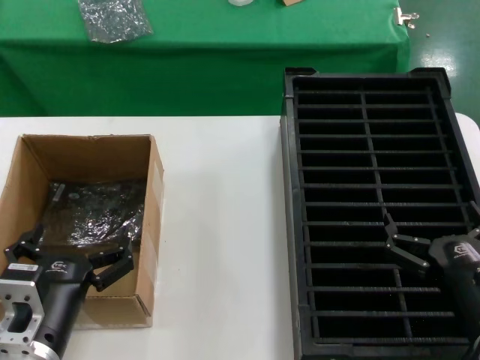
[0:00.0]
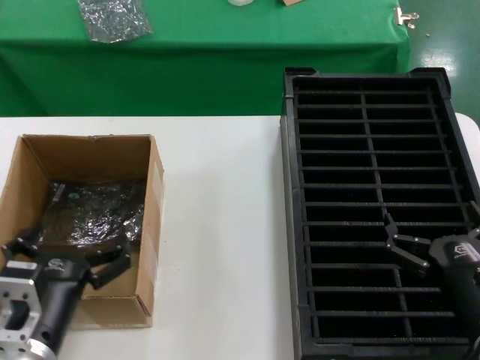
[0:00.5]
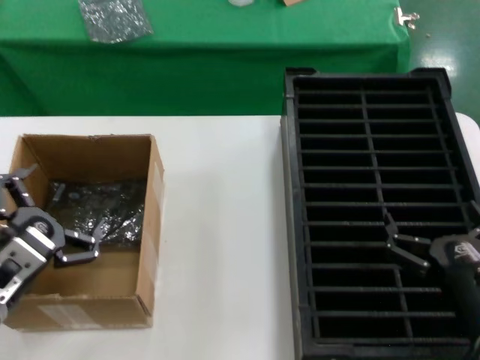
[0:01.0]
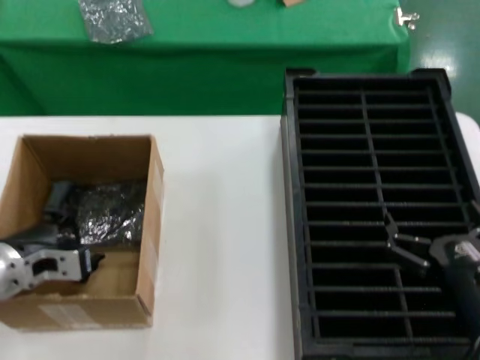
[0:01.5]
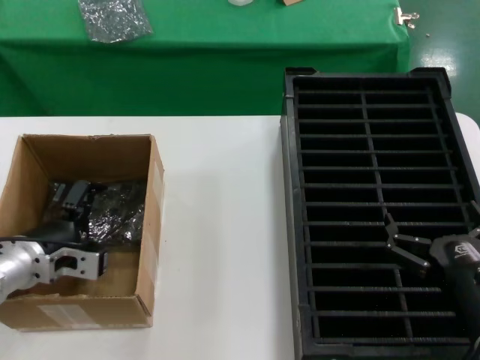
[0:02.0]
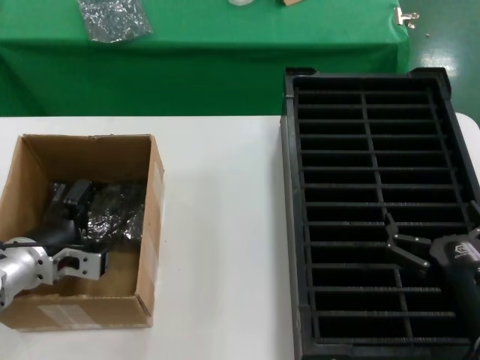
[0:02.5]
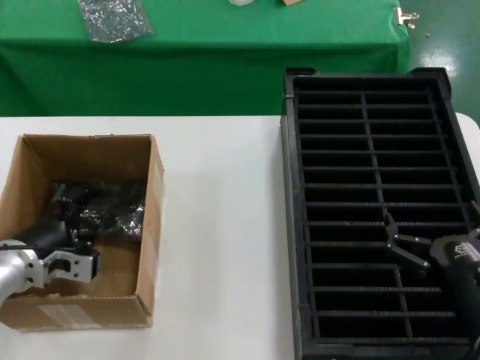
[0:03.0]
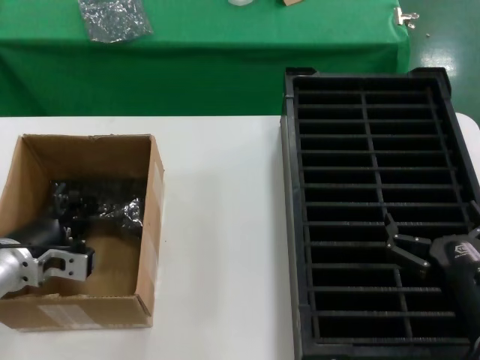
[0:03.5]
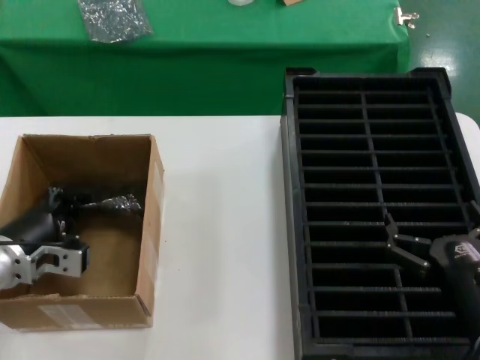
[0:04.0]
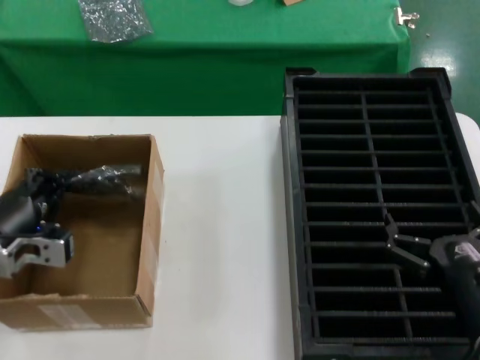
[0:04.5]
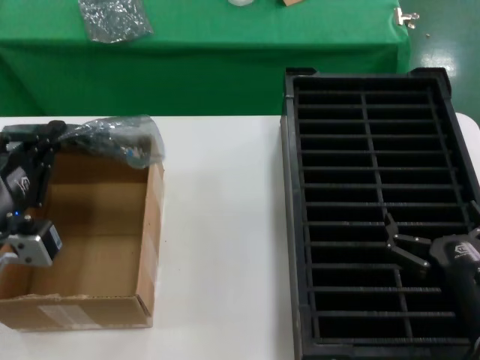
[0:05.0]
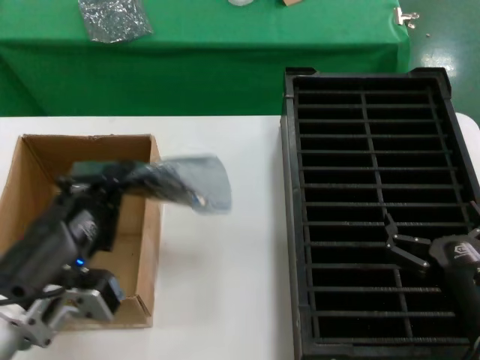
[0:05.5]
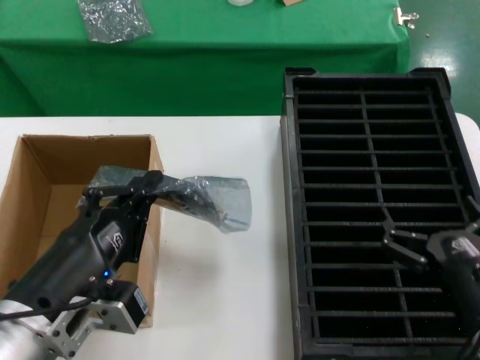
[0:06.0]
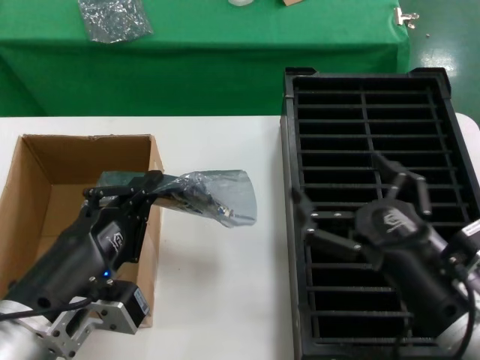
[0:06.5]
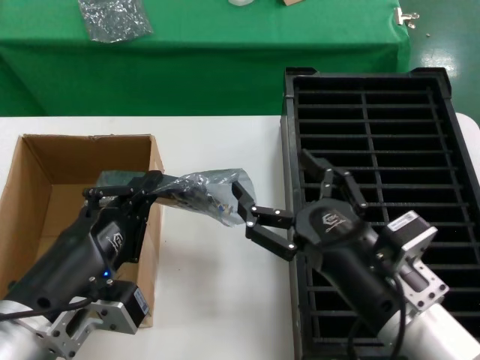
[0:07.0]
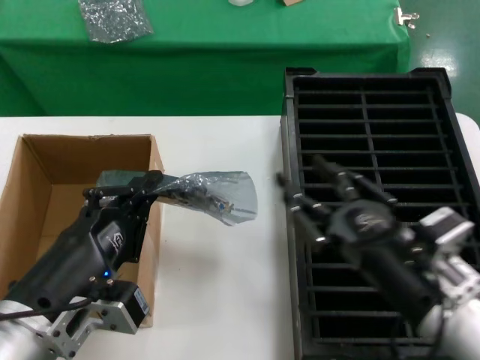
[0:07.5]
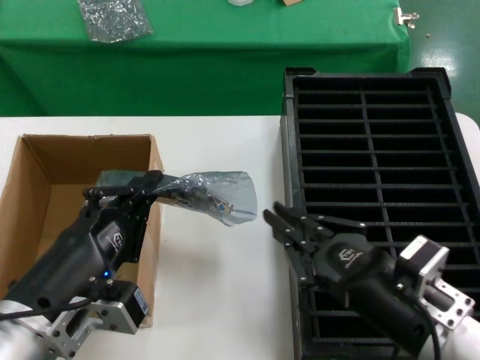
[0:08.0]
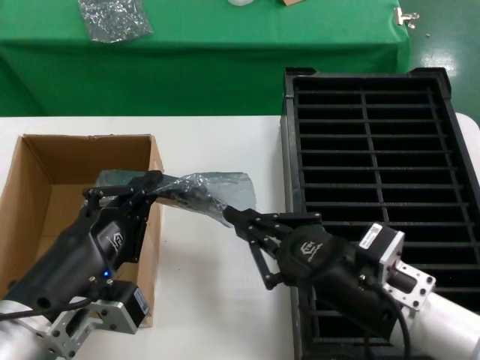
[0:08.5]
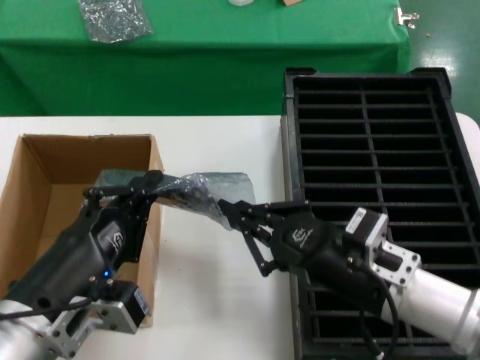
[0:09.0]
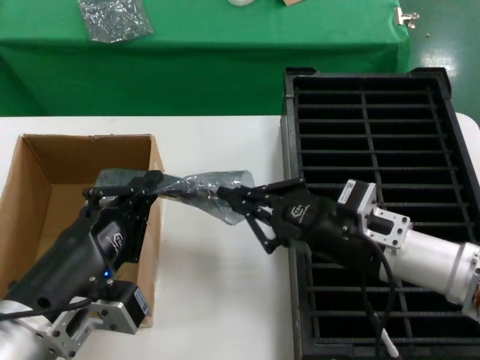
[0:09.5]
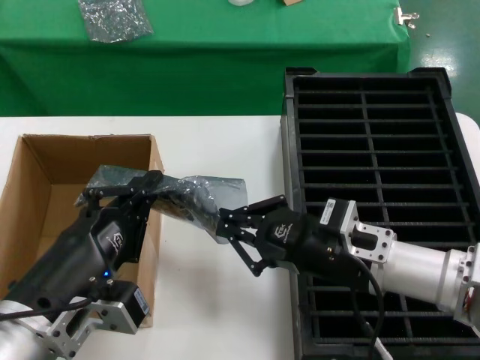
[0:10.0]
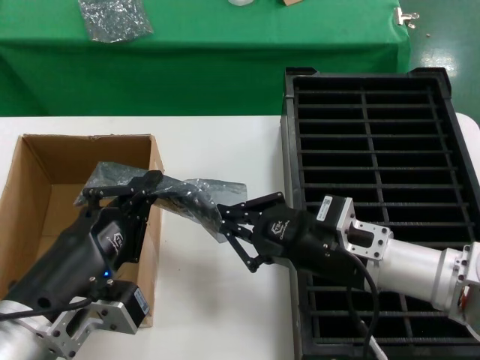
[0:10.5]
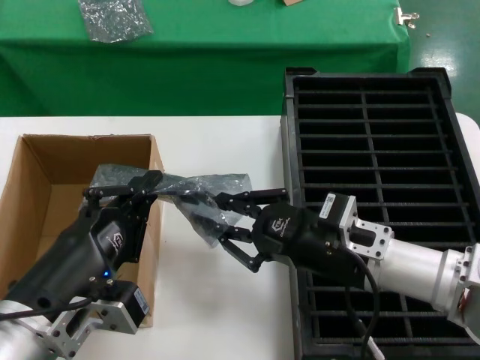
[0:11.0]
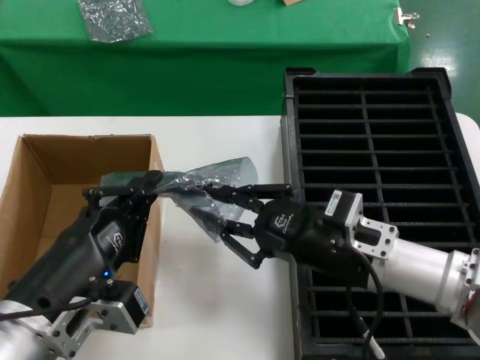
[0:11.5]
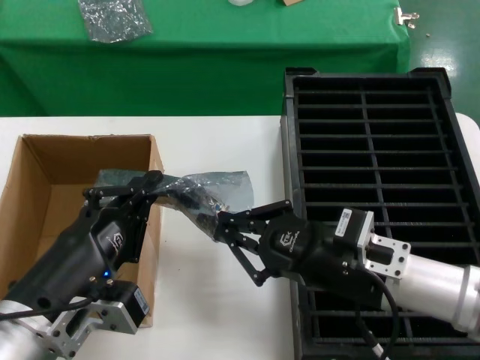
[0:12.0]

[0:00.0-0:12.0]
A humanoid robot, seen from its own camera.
Task of the whole recording: take out graphics card from box remove packaging put into black container.
Step, 0:00.0 to 0:04.0: Grasp the bag.
Step, 0:04.5 to 0:06.0: Lift the bag.
0:00.0 to 0:02.0: The left hand is displaced forward and to the left by approximately 20 cm.
0:02.0 to 0:04.0: There are only small adjustments of the hands.
0:04.0 to 0:06.0: The left hand shifts about 20 cm backward and to the right.
0:06.0 to 0:08.0: The right hand is displaced upward and to the left by roughly 5 cm.
0:08.0 to 0:10.0: The right hand goes roughly 10 cm forward.
0:10.0 to 0:12.0: The hands move only a little.

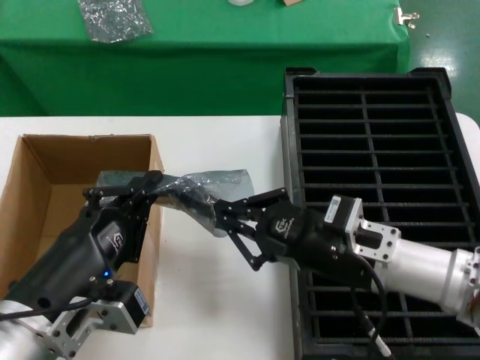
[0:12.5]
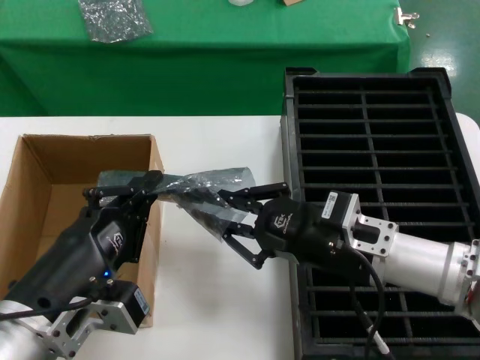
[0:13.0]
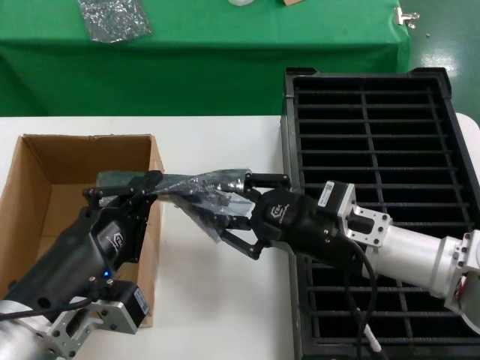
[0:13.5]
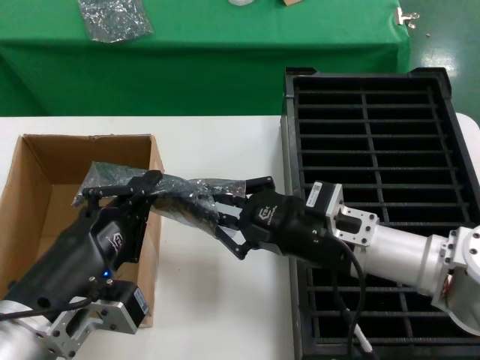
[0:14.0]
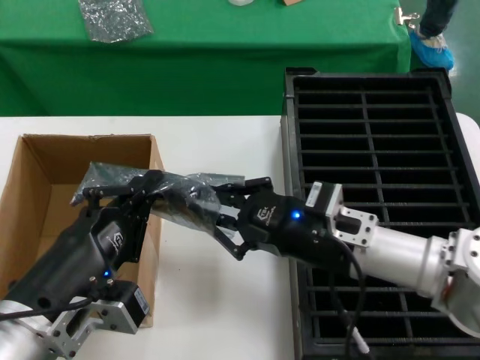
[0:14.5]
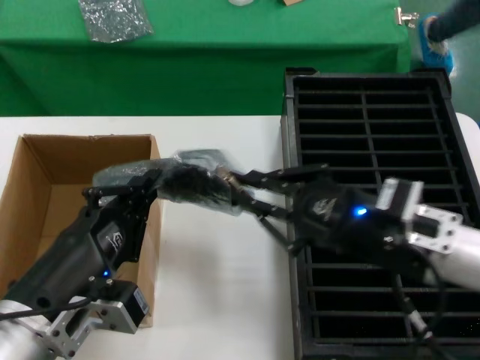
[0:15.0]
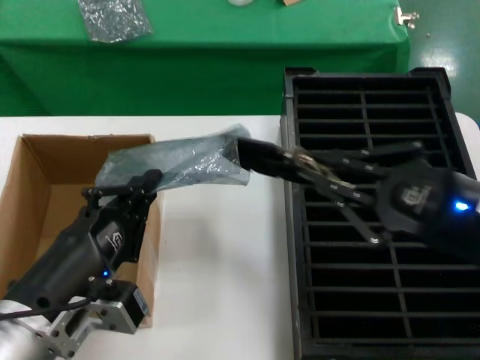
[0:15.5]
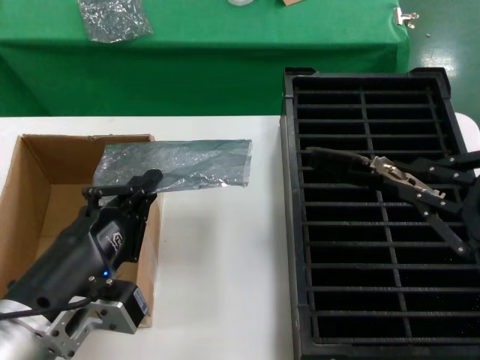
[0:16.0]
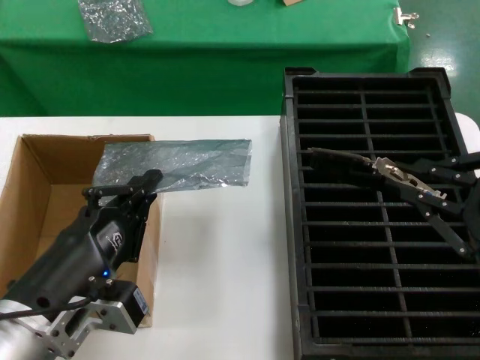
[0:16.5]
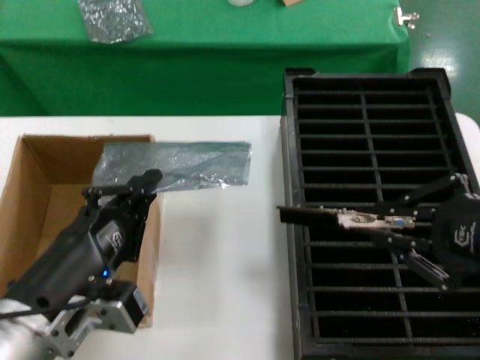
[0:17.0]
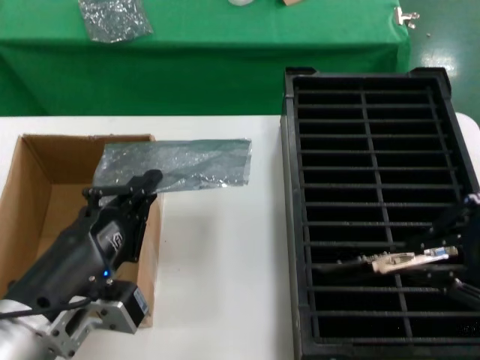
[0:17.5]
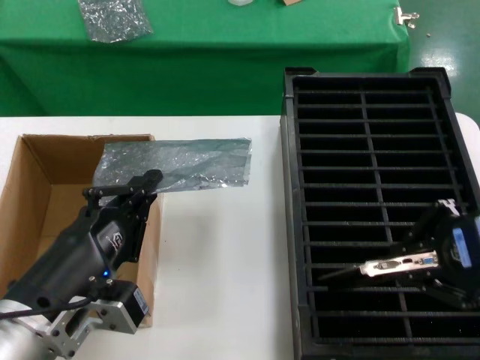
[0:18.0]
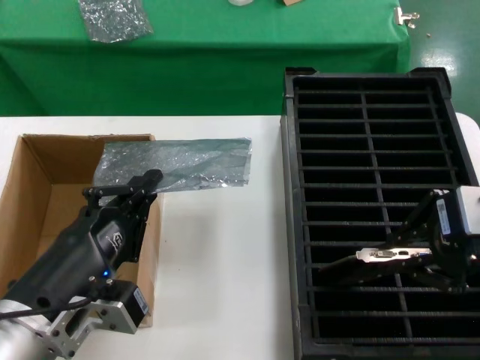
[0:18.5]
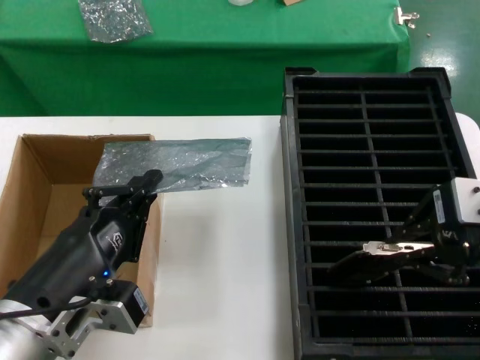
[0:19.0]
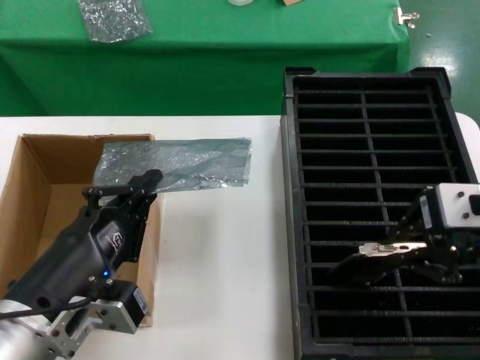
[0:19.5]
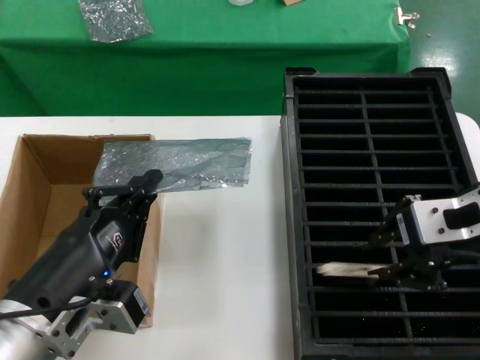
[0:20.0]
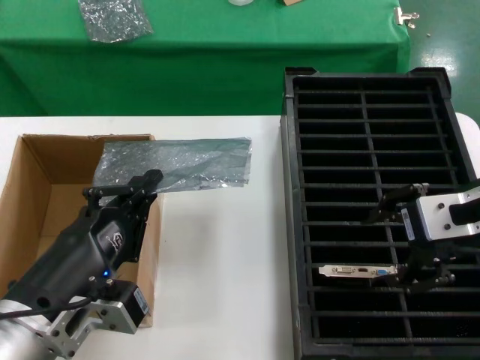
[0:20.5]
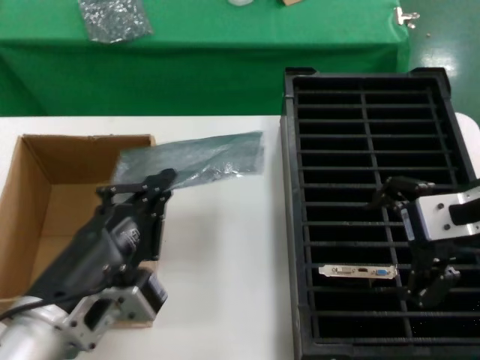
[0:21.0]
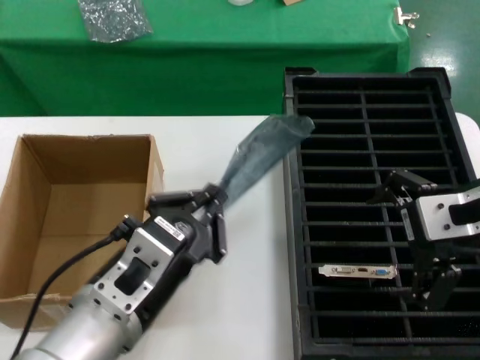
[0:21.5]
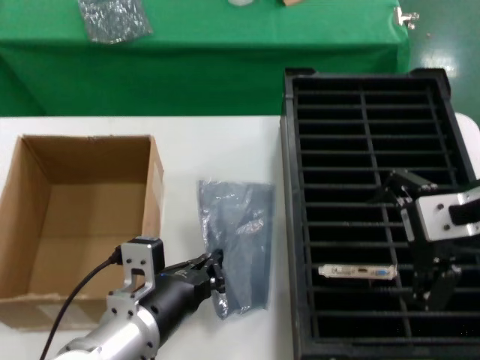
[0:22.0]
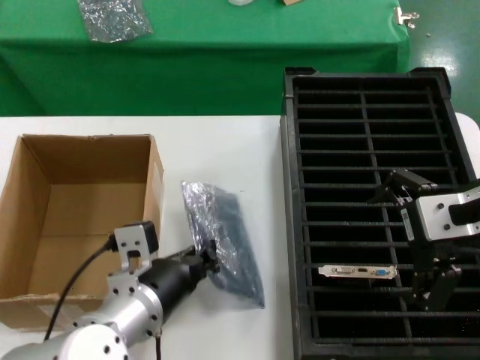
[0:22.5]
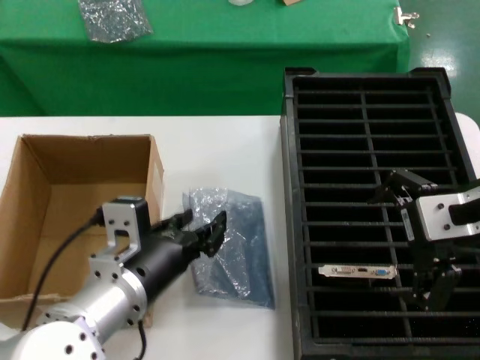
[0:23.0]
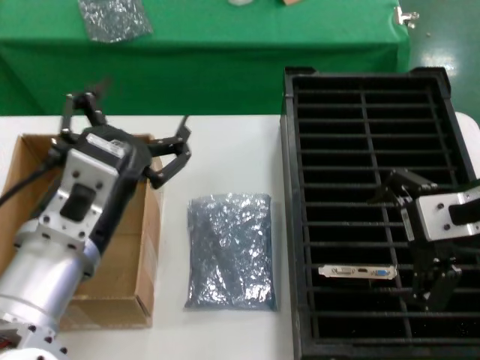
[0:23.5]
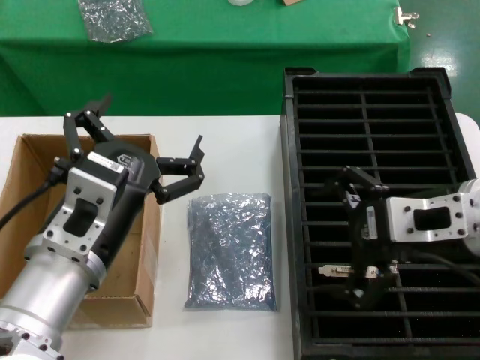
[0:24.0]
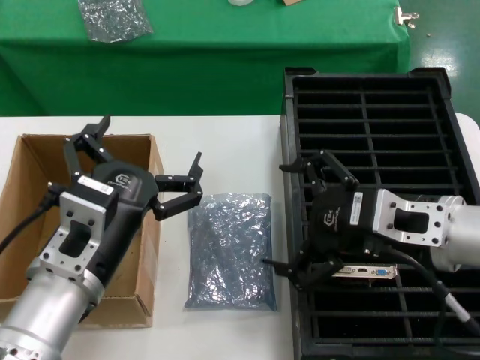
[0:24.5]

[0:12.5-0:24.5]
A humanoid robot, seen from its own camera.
Task of the whole recording: take out graphics card from box remove packaging put into black container.
Step, 0:12.5 to 0:15.5: Take out the hard disk of the bag.
Step, 0:16.0 to 0:20.0: Place the hard disk in the hard disk enclosure.
Step, 0:20.5 to 0:23.0: Place the down the bag.
0:12.5 to 0:14.5: The hands stay close to where they were, moving slightly.
0:14.5 to 0:16.5: The right hand is displaced backward, to the right and upward by roughly 25 cm.
0:16.5 to 0:18.5: The right hand is displaced forward, to the left and upward by roughly 10 cm.
0:18.5 to 0:20.5: The hands make only small movements.
0:20.5 to 0:22.5: The left hand shifts about 15 cm forward, to the right and downward.
0:22.5 to 0:24.5: The right hand moves downward, roughly 10 cm; the left hand moves upward and backward, about 10 cm.

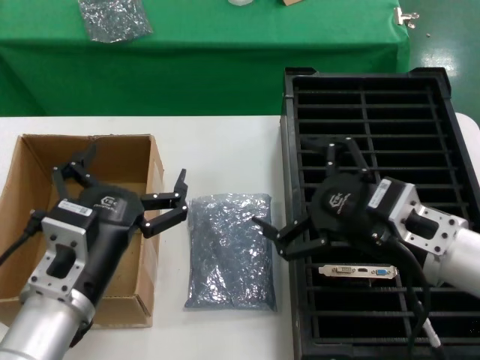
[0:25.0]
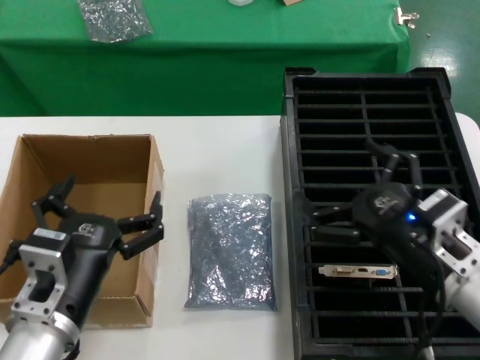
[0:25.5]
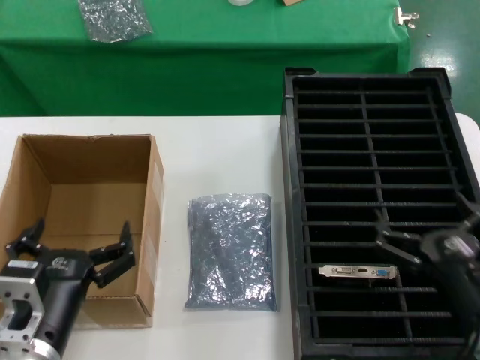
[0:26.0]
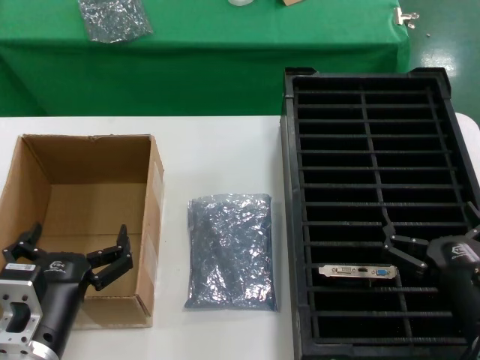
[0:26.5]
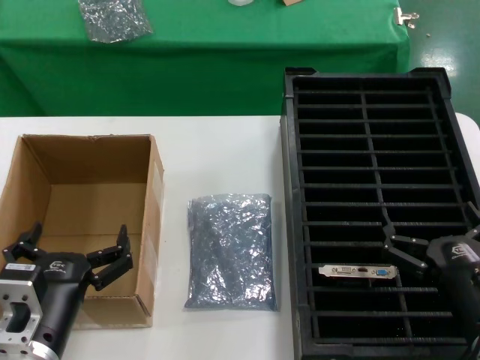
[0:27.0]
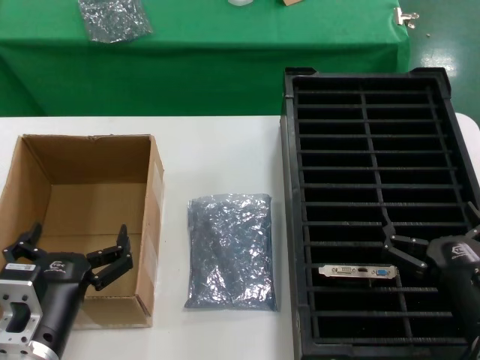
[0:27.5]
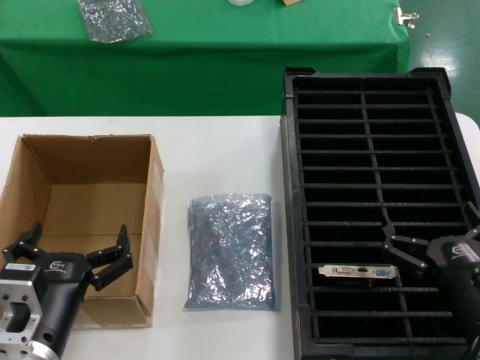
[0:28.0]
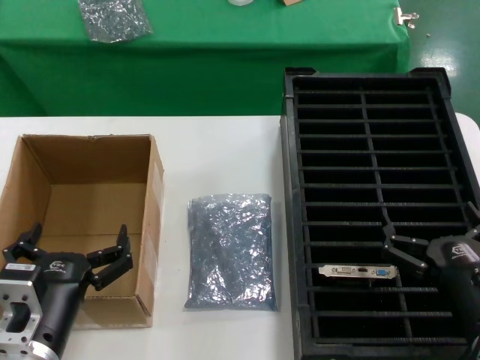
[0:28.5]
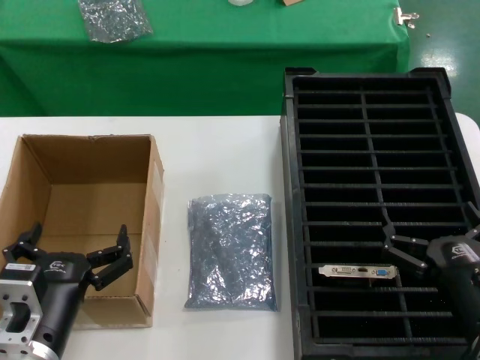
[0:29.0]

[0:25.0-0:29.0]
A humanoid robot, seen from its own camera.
Task of the whole recording: take out graphics card from box remove packaging put into black container.
0:25.0 to 0:27.0: The left hand travels downward by roughly 5 cm. Meanwhile the right hand moves downward and backward, approximately 15 cm.
0:27.0 to 0:29.0: Both hands stay about where they are.
